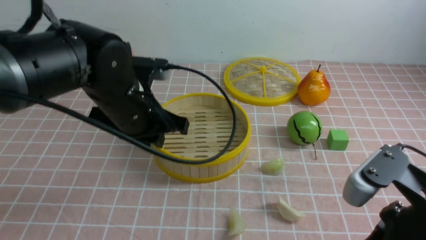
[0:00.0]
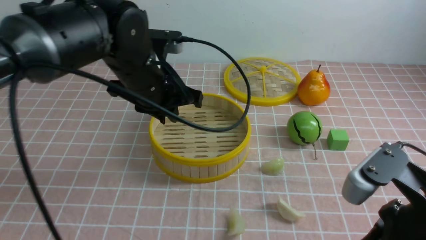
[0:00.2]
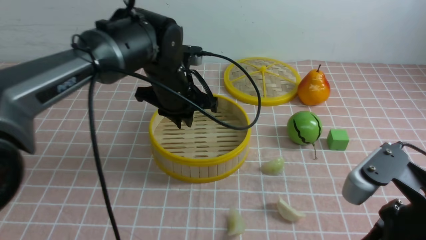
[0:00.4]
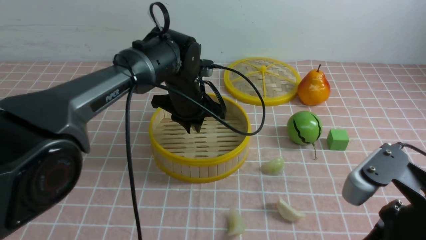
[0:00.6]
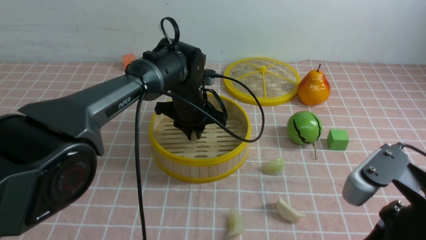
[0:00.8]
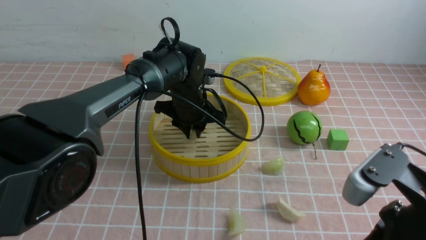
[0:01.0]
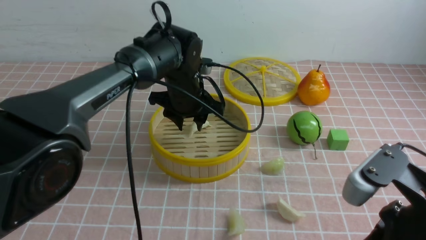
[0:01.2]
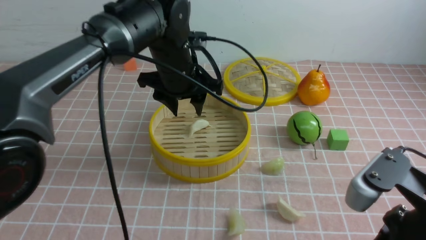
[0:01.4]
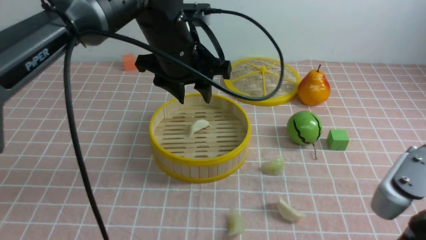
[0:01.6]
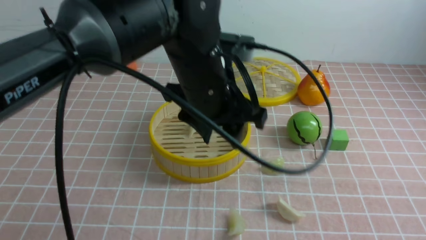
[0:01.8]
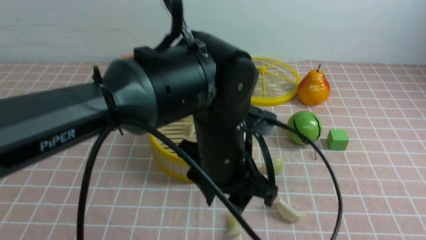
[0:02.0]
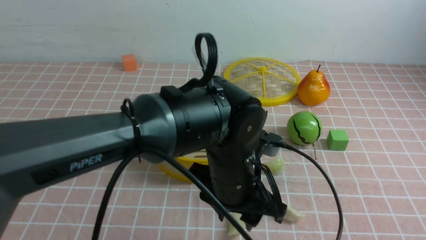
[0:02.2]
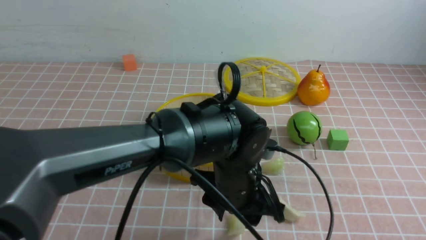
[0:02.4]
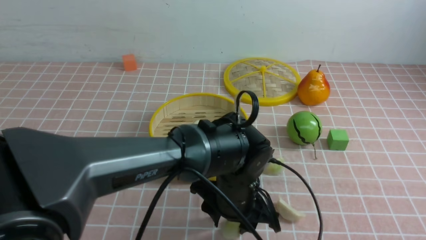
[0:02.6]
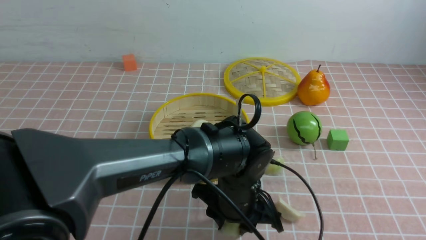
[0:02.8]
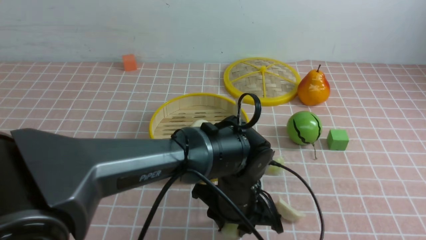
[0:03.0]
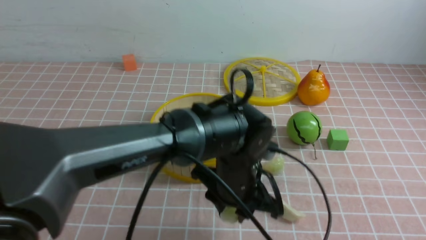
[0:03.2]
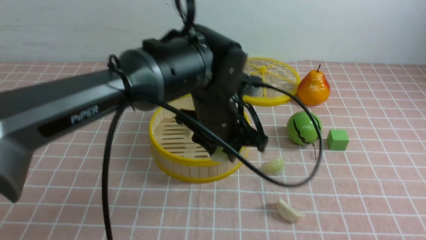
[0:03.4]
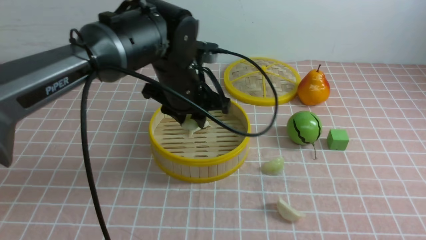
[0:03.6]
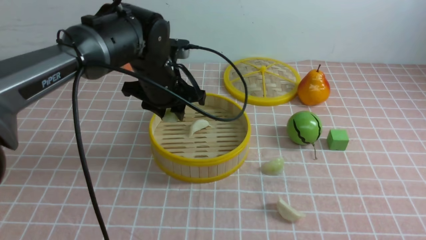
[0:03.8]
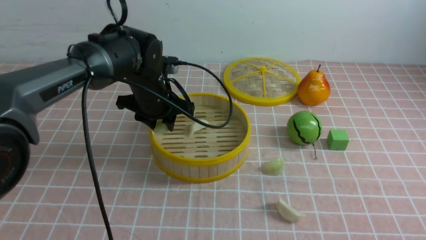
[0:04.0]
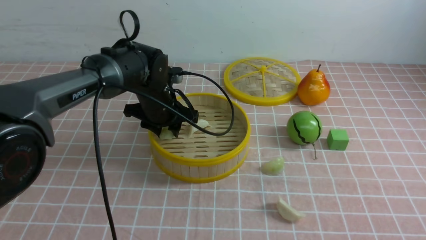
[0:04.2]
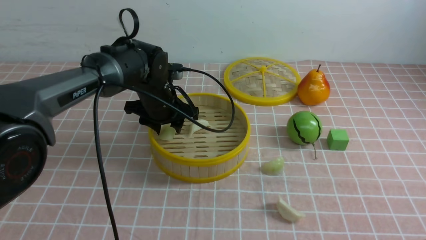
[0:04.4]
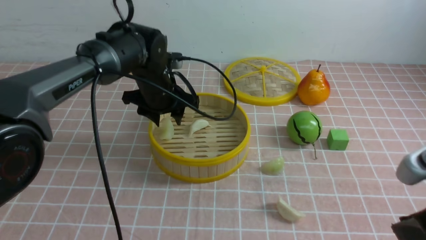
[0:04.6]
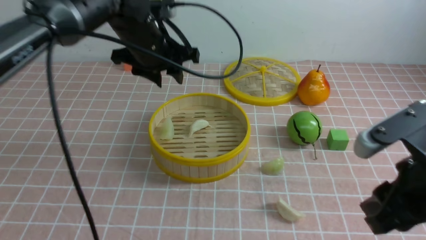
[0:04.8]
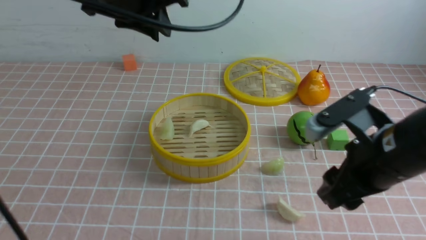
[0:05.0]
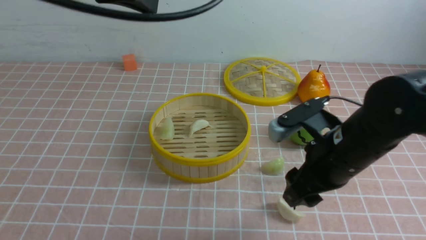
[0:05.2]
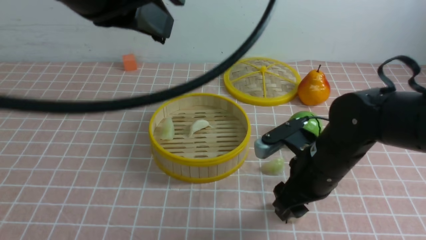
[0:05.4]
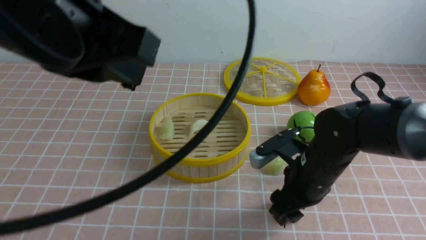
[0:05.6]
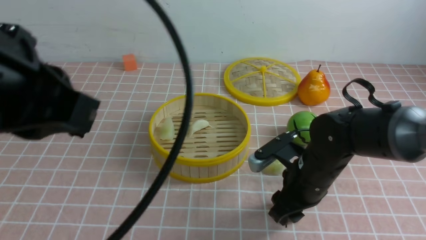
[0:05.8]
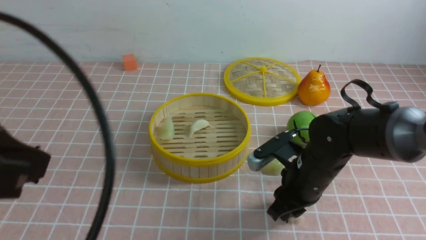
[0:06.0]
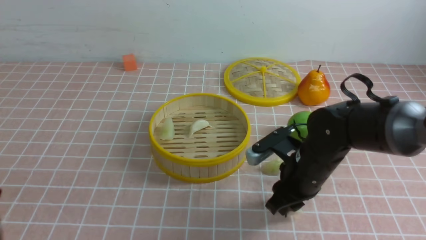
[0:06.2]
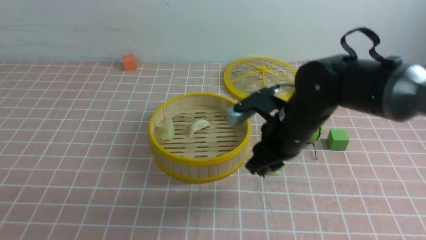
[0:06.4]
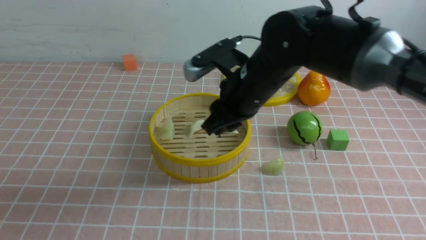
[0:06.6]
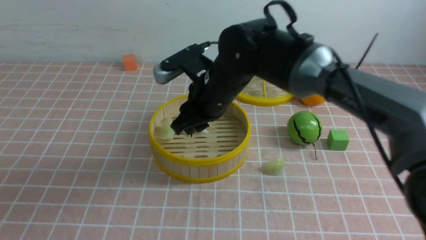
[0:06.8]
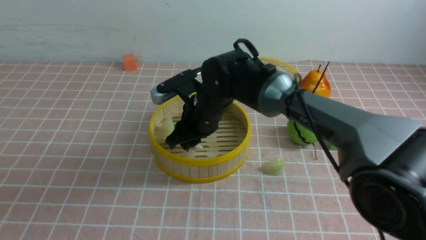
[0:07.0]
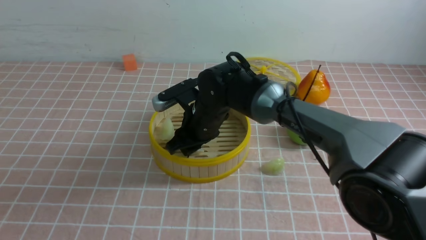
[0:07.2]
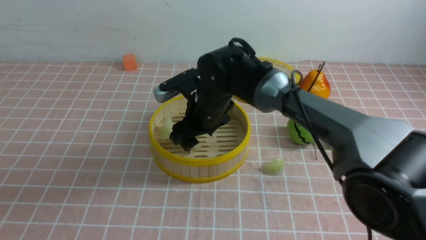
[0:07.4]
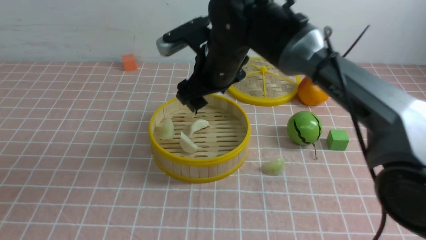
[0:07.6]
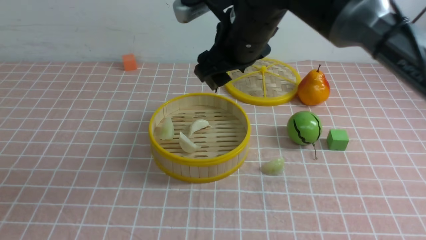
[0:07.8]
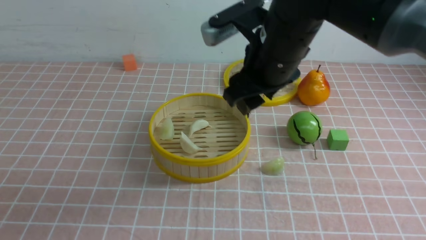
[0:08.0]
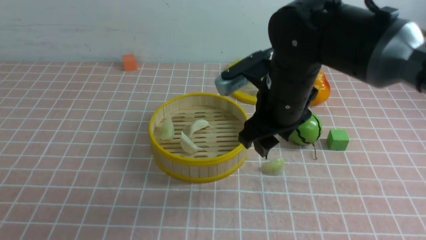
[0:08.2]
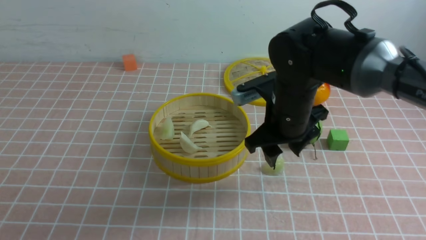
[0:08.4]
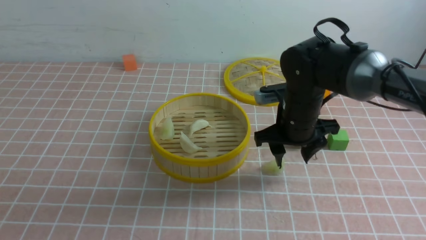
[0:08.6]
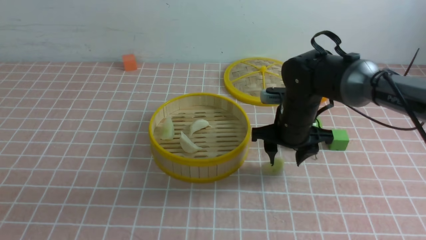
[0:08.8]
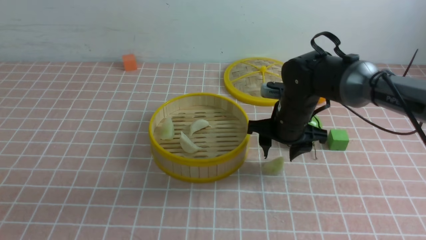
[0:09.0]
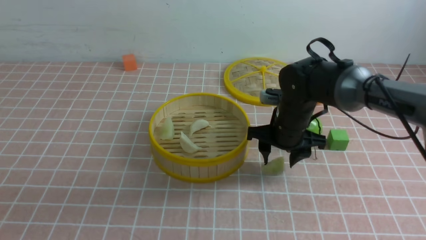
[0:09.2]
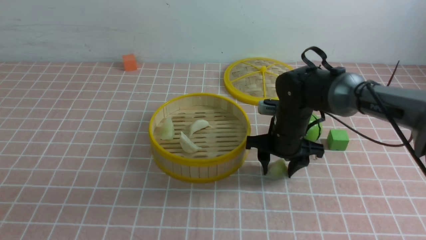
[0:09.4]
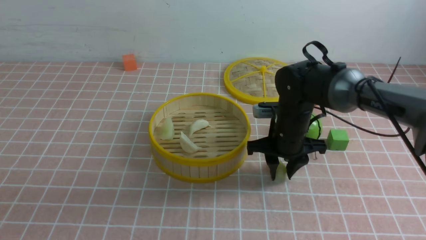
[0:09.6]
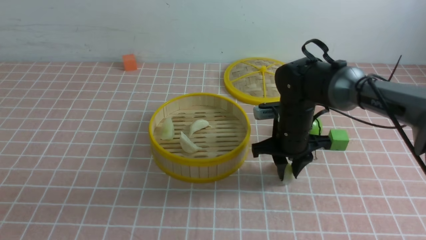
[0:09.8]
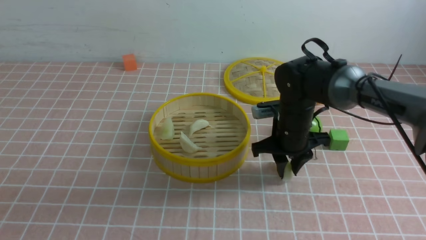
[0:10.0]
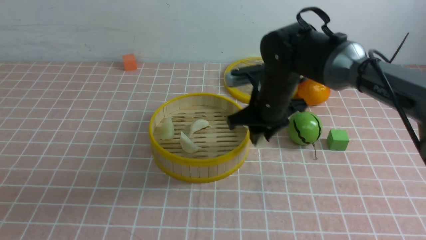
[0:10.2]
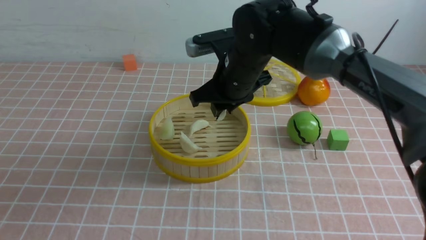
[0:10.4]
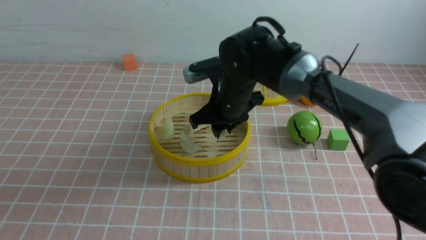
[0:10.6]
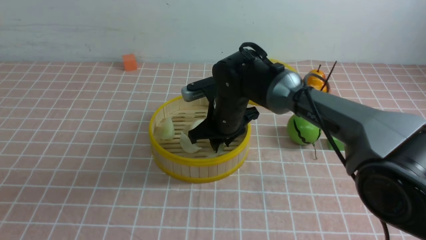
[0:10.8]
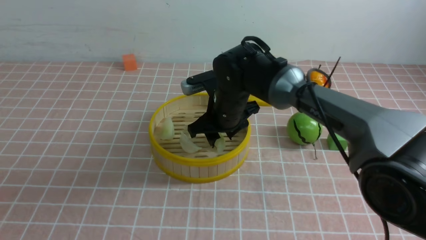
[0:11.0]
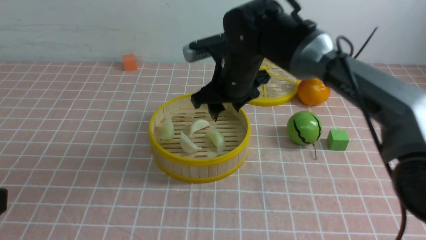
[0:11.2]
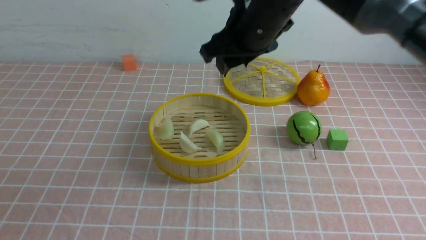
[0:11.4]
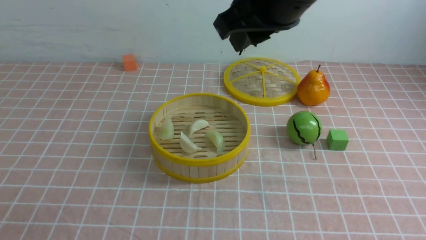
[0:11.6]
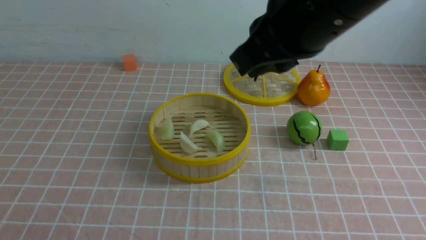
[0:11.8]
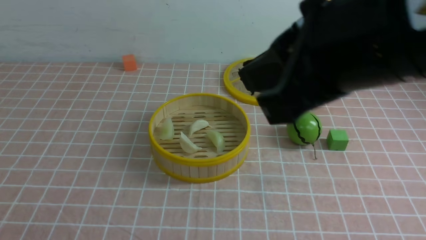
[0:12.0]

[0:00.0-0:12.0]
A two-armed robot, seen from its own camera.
Task of the whole recording: put the dumplings into the steamer on the table with the pink tablecloth.
Step, 0:00.0 to 0:01.2: use the left arm to put the dumpling into the steamer.
Step, 0:01.4 to 0:03.0: use the left arm to grab a dumpling.
Step, 0:03.2 to 0:04.4: use the left arm to put the dumpling into the steamer.
Step, 0:04.8 to 0:06.0: use the right arm to grab a dumpling.
Step, 0:06.4 to 0:07.2: use the right arm to put the dumpling into the steamer.
Step, 0:07.4 to 0:09.8: use the right arm to grab a dumpling.
Step, 0:10.2 to 0:10.8: use the right arm to put the dumpling into the steamer.
0:00.0 to 0:01.6: The left gripper moves to the right and upward, some 10 cm, and opens up.
0:01.6 to 0:03.0: The right gripper shifts some 10 cm backward and to the right. The left gripper moves downward, backward and to the right, about 20 cm.
0:03.0 to 0:04.4: The left gripper goes about 20 cm forward and to the left; the right gripper moves forward, some 5 cm.
0:04.4 to 0:06.0: The right gripper goes roughly 25 cm forward, downward and to the left, and opens up. Meanwhile the left gripper is displaced backward and upward by roughly 40 cm, and closes up.
0:06.0 to 0:07.6: The left gripper goes about 10 cm backward and to the left; the right gripper heads upward, to the left and forward, covering approximately 20 cm, and opens up.
0:07.6 to 0:09.0: The right gripper moves downward and to the right, about 15 cm.
0:09.0 to 0:10.4: The right gripper heads to the left and upward, covering approximately 10 cm, and closes its fingers.
0:10.4 to 0:12.0: The right gripper moves backward and upward, some 30 cm. The left gripper heads downward, covering approximately 10 cm.

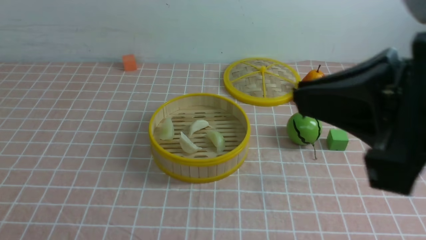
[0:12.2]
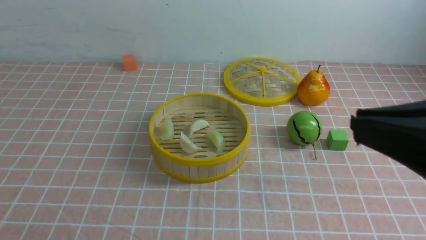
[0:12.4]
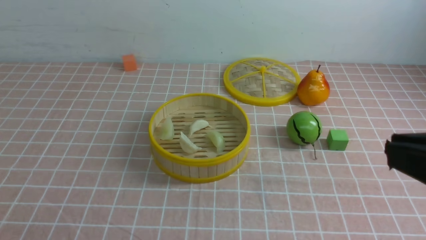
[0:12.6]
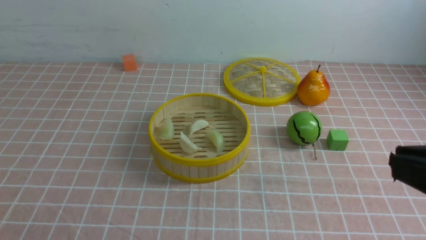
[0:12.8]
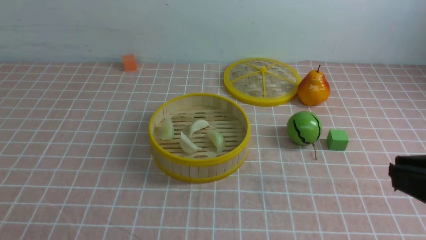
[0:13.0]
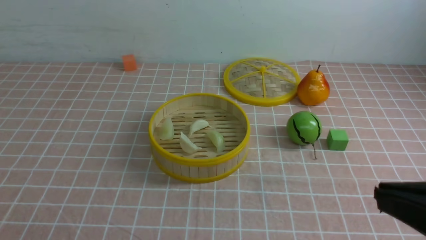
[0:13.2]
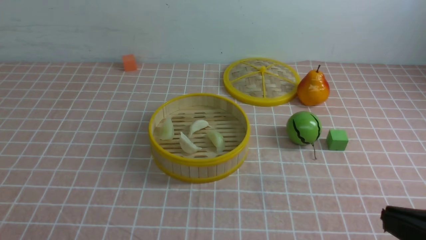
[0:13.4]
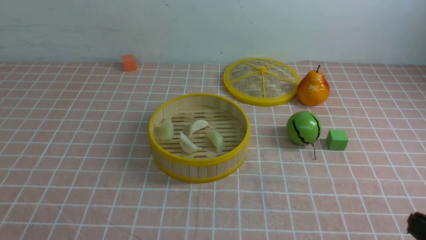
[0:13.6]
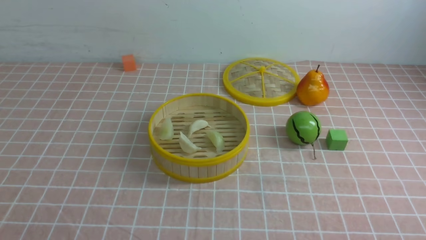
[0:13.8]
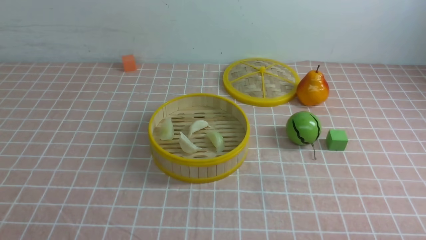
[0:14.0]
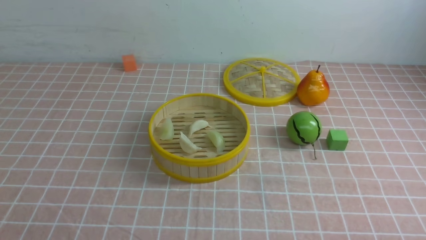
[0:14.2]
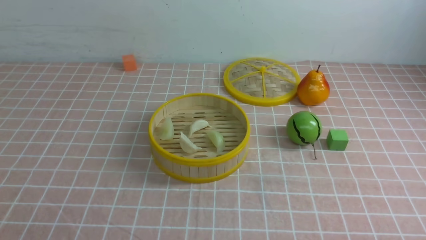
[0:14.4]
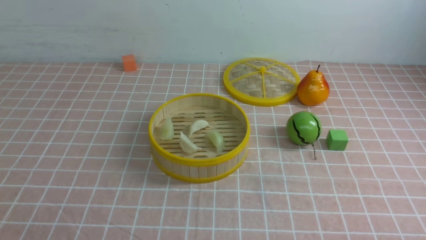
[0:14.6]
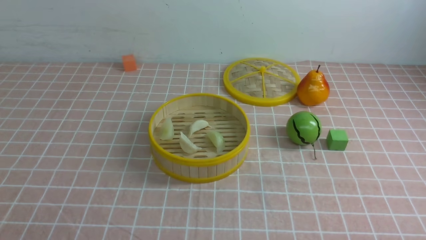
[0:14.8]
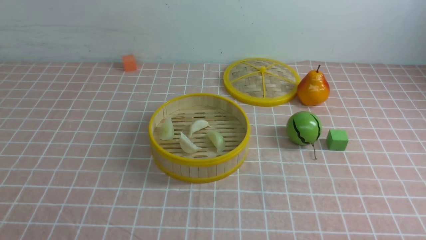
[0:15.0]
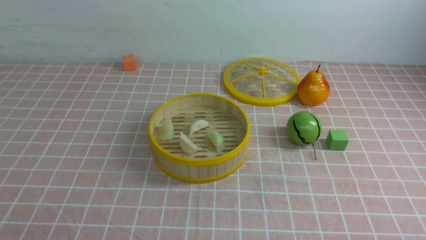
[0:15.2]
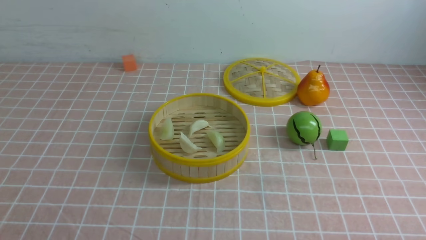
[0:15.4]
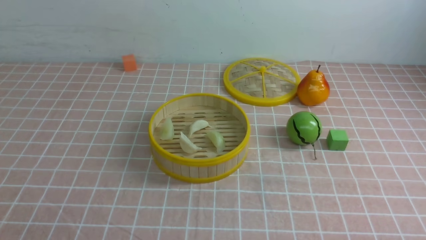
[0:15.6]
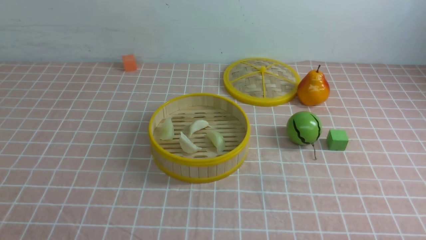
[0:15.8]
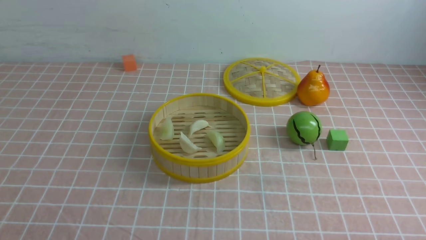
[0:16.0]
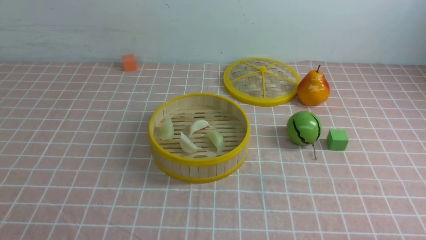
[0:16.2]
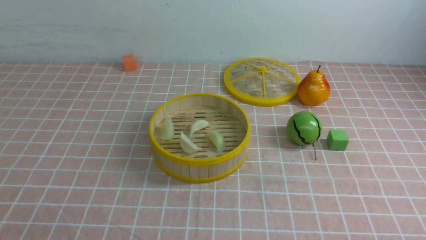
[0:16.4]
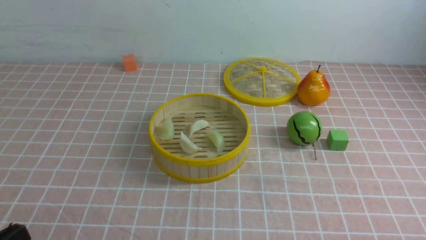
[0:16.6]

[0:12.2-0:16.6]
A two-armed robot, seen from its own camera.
Task of the whole recording: put the dumplings into the steamer on the table with the pink tablecloth.
0:12.2 to 0:13.6: The right gripper shifts roughly 20 cm downward and to the right.
0:13.6 to 0:15.2: The right gripper shifts approximately 10 cm downward.
